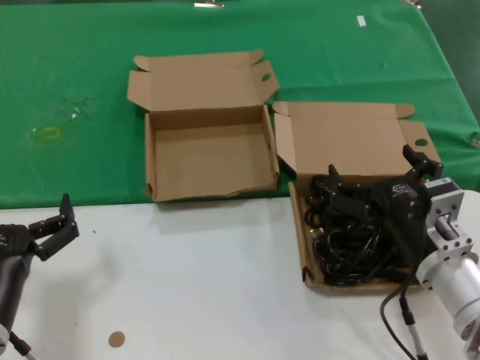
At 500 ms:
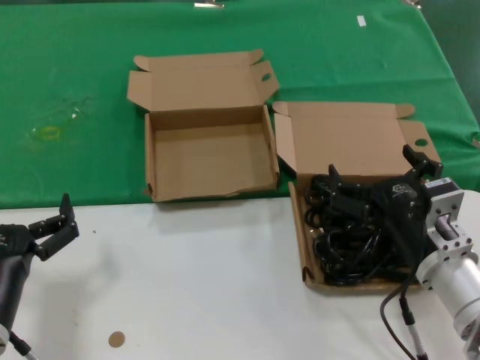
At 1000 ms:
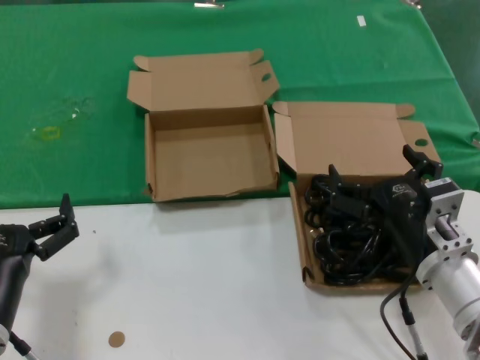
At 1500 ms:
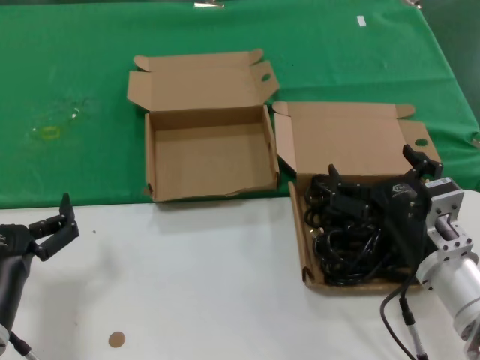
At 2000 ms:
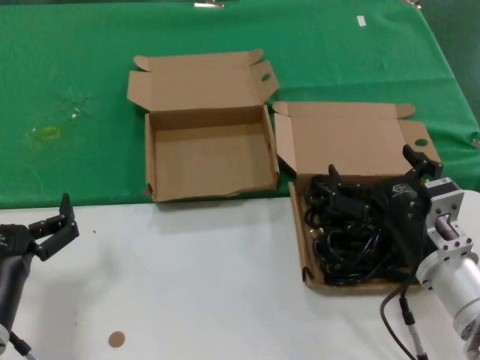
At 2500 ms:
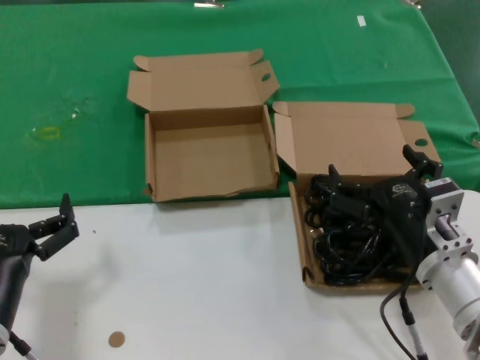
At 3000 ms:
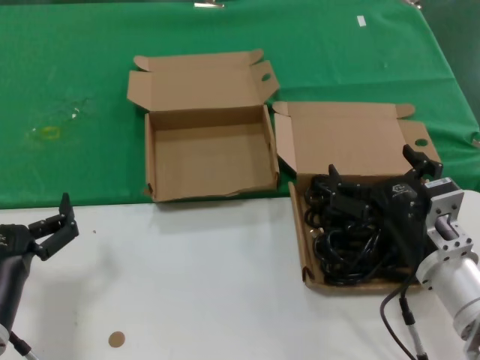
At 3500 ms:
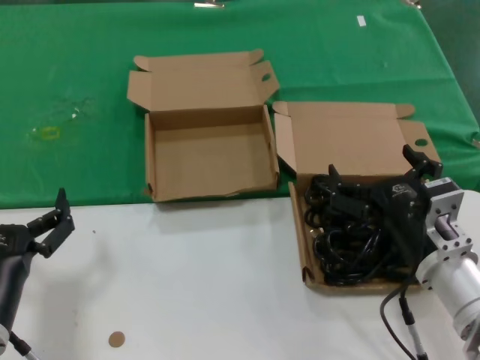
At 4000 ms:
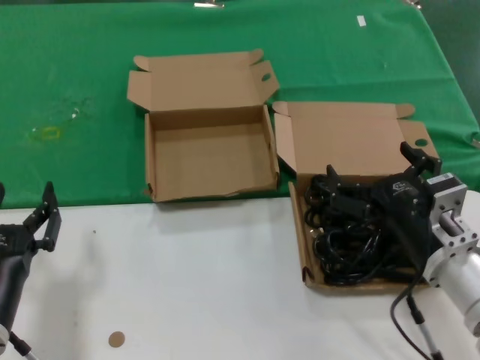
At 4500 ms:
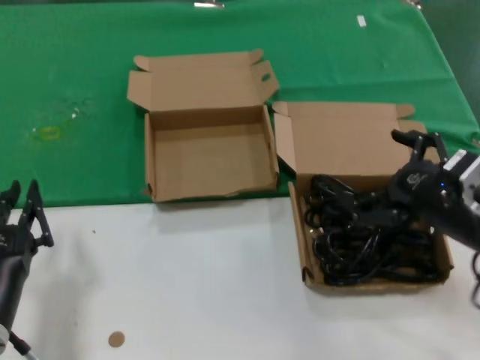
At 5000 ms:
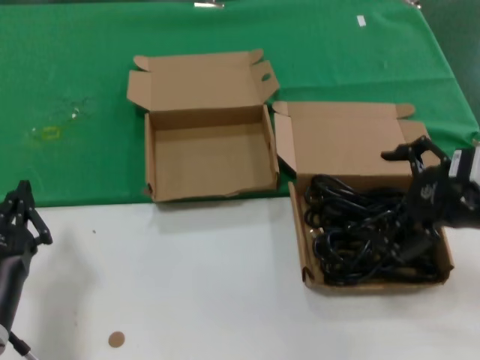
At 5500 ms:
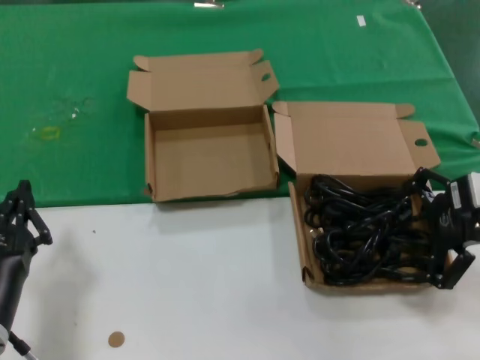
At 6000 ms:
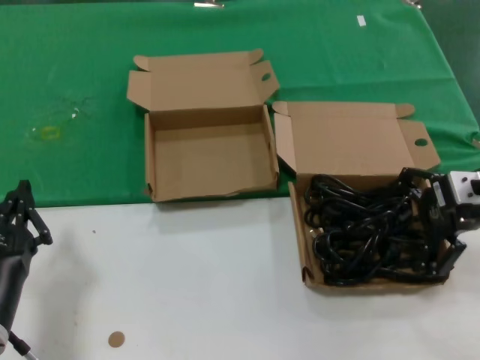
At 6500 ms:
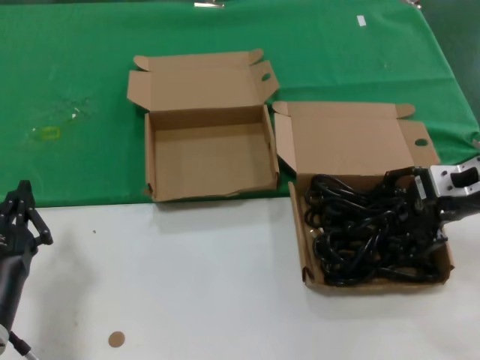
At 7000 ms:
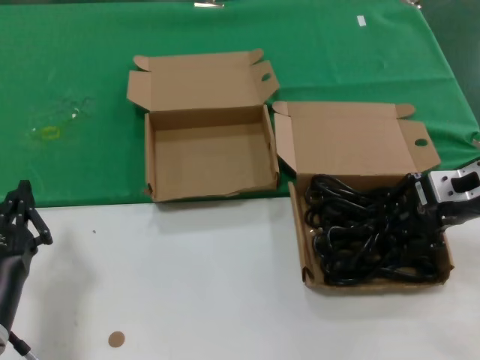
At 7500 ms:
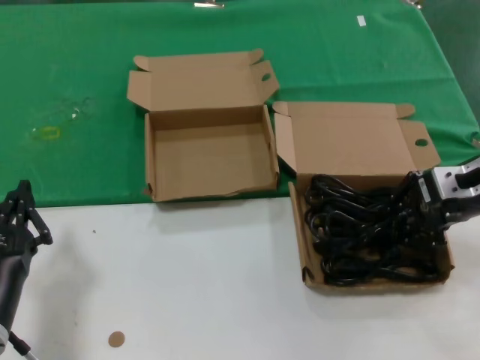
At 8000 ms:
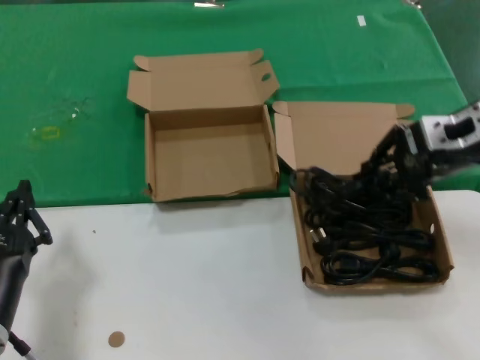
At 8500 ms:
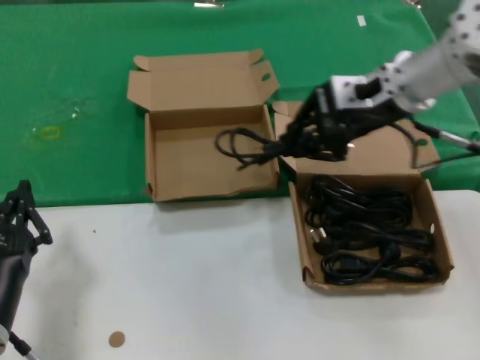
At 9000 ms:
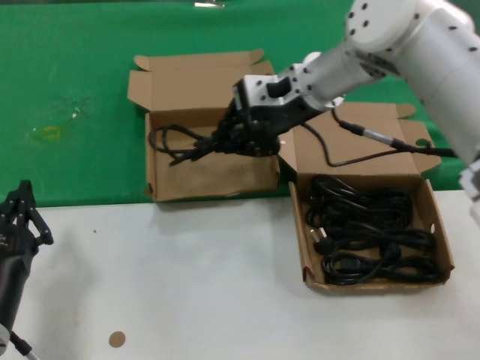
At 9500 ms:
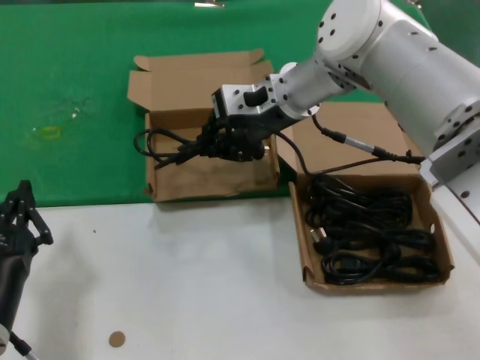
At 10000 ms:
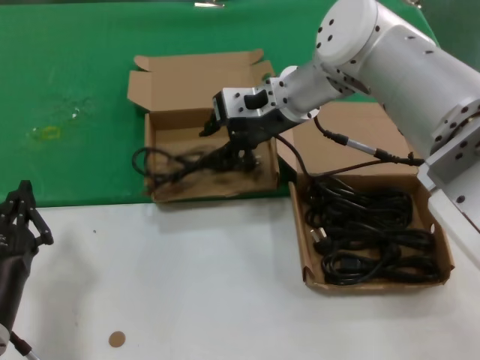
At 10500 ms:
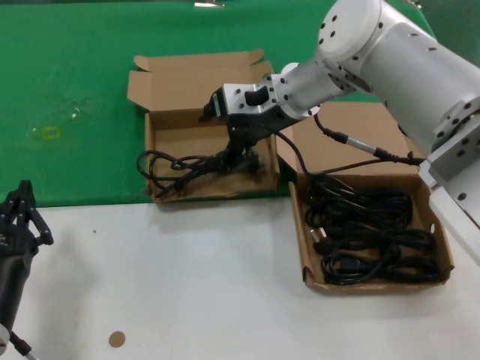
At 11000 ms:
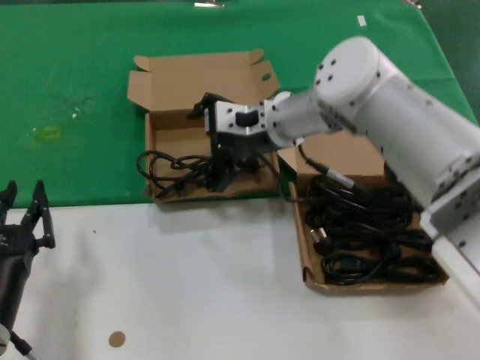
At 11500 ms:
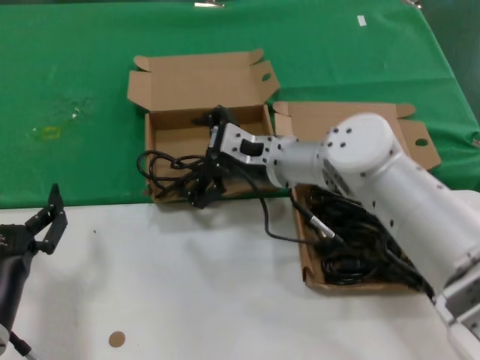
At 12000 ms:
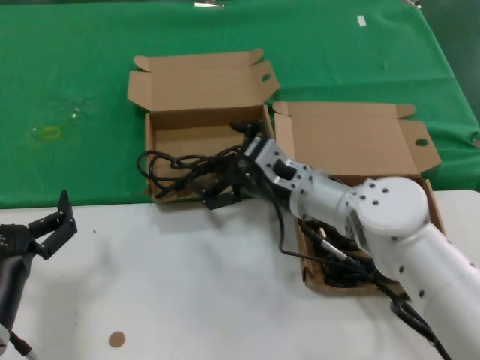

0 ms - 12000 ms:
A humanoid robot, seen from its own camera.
Task of the whole recording: take the parts from the box containing them and put them into an empty box.
Step, 0 ms - 7000 ms: Grasp the data cable.
Step, 7500 ms - 10000 ms: Place the data cable in the another box.
0 ms - 4000 ms: The two hands keep their place.
4000 ms - 6000 ms: The right hand shifts some 20 cm upward, to the right and forward.
6000 ms - 8000 ms: The right hand travels upward by approximately 5 cm.
8000 ms - 10000 ms: The right hand shifts some 25 cm to the left and forward.
10000 ms - 12000 ms: The right hand shifts some 20 cm downward and backward.

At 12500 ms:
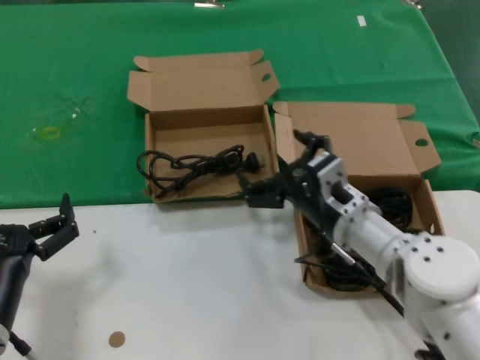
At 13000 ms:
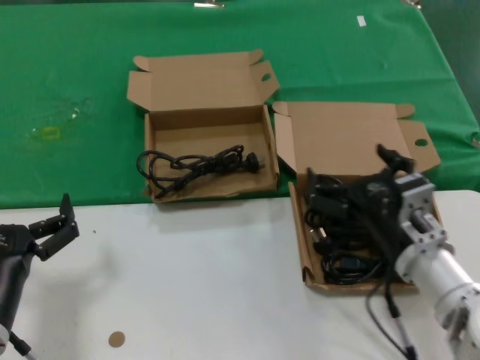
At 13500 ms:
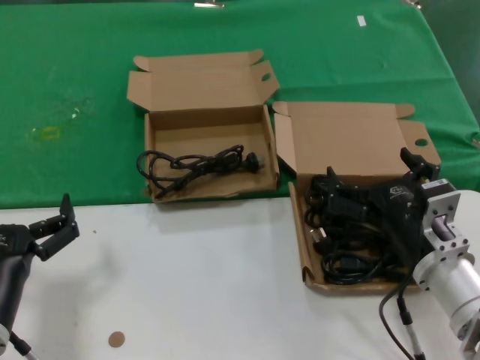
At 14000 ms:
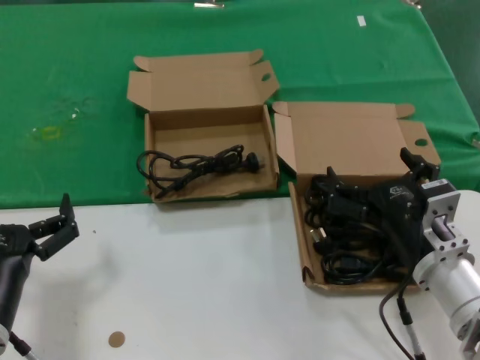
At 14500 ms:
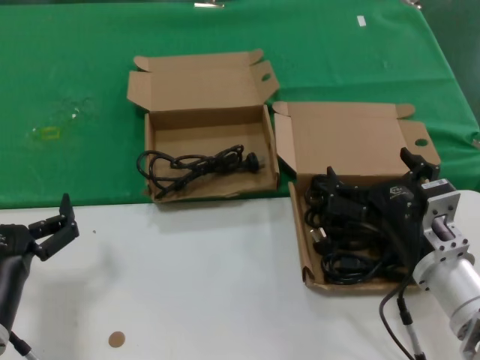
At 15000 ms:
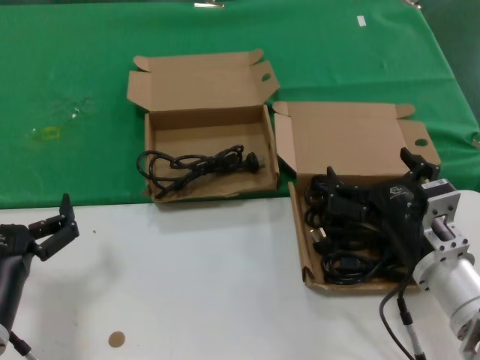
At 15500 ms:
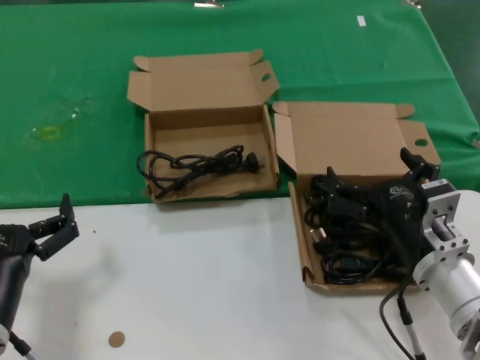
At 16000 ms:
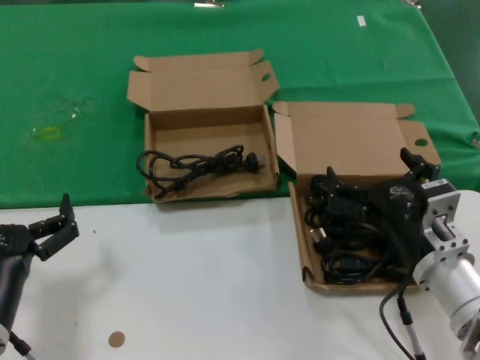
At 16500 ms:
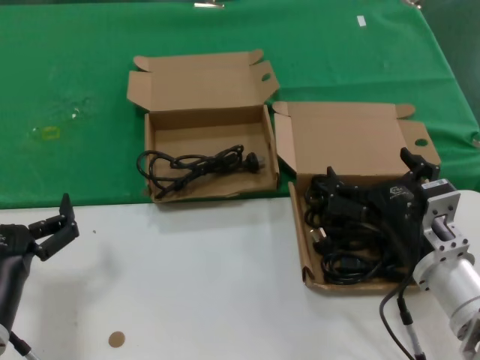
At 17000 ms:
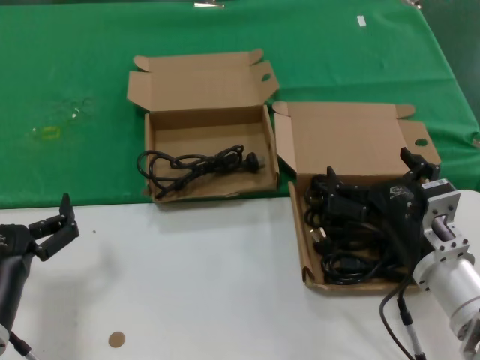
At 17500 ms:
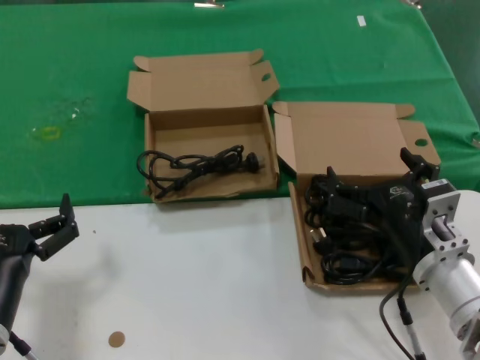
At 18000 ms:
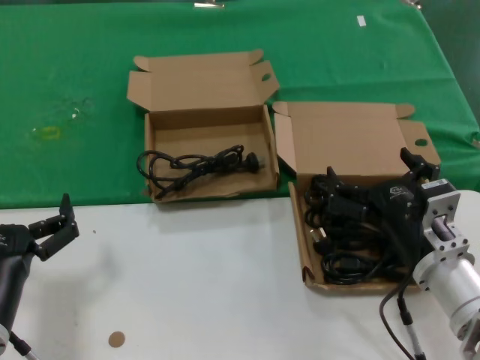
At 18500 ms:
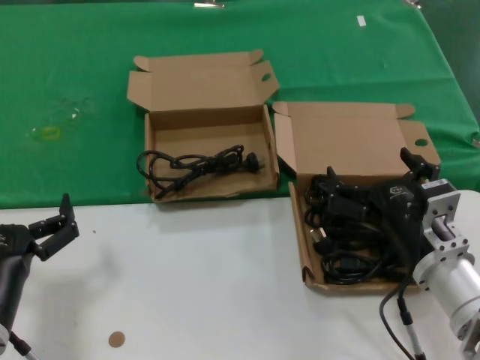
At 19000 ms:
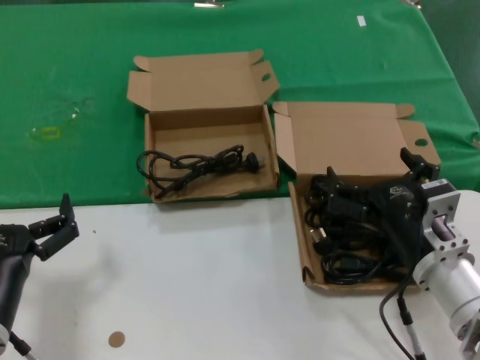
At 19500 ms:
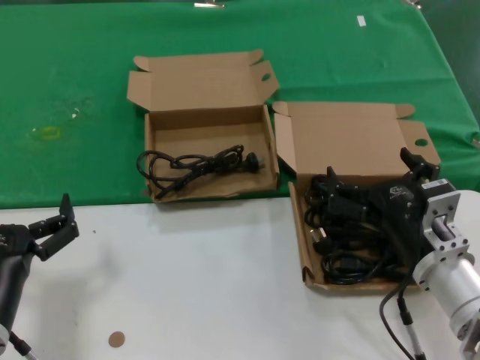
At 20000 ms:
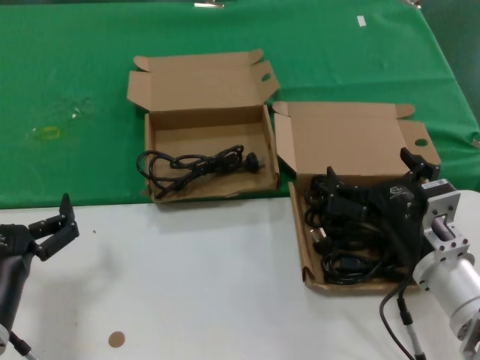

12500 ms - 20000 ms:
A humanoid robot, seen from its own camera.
Task of the whole recording: take the parts from the box containing them and put them into an empty box.
12500 ms - 14500 ms: The right hand is displaced backward and to the right by some 10 cm.
14500 ms - 20000 ms: Both hands stay about where they are.

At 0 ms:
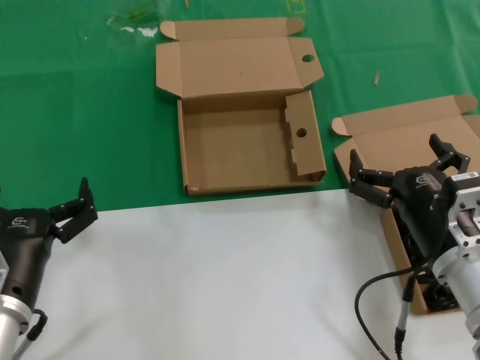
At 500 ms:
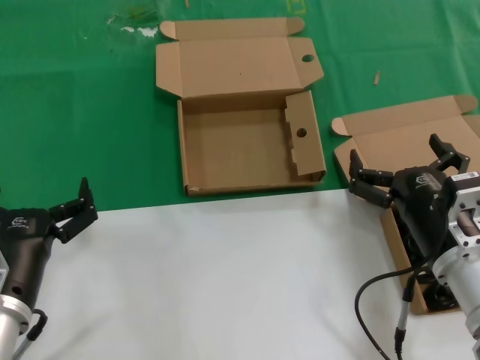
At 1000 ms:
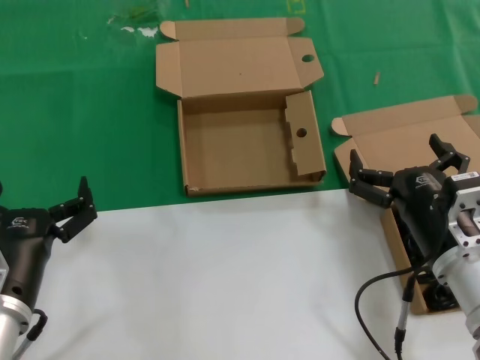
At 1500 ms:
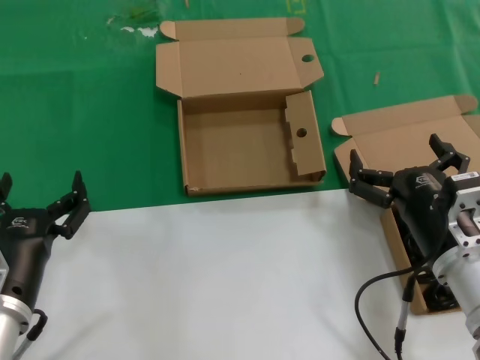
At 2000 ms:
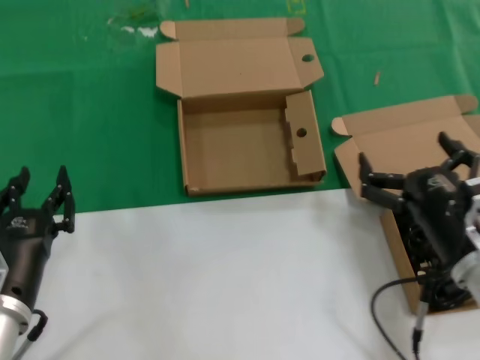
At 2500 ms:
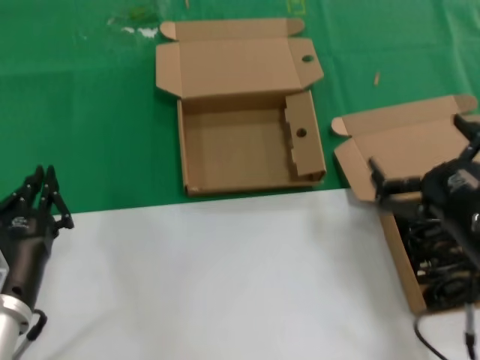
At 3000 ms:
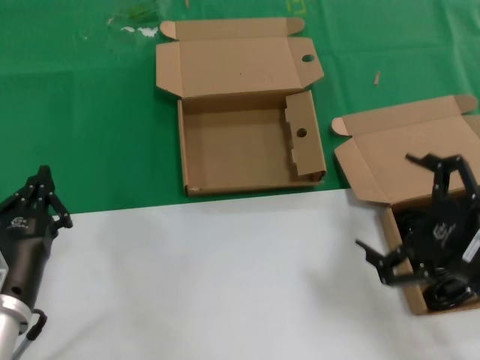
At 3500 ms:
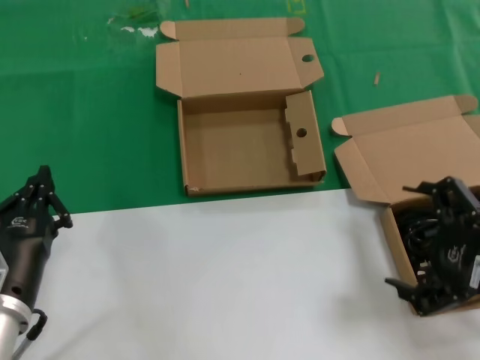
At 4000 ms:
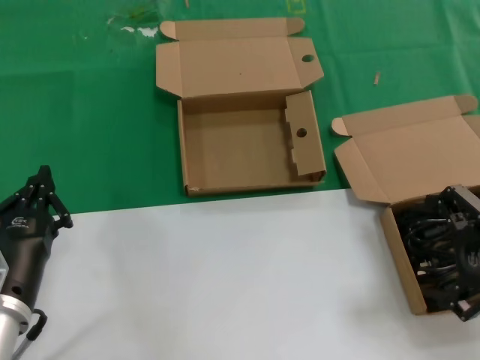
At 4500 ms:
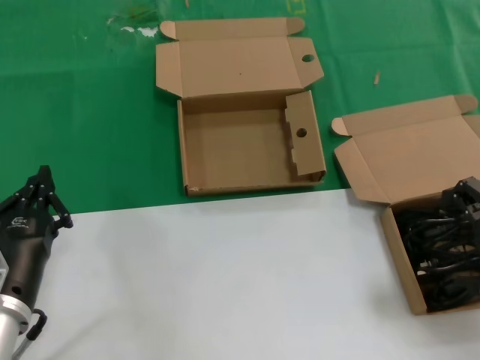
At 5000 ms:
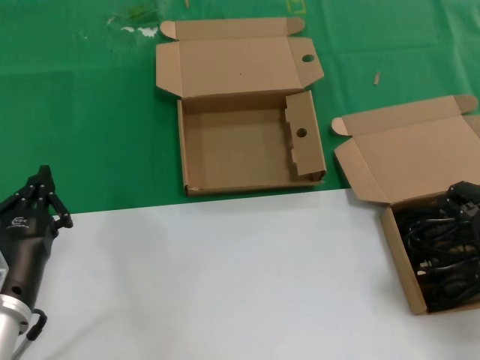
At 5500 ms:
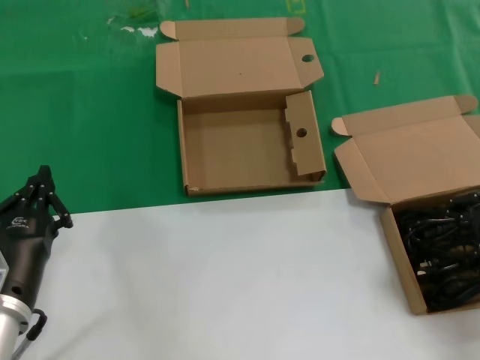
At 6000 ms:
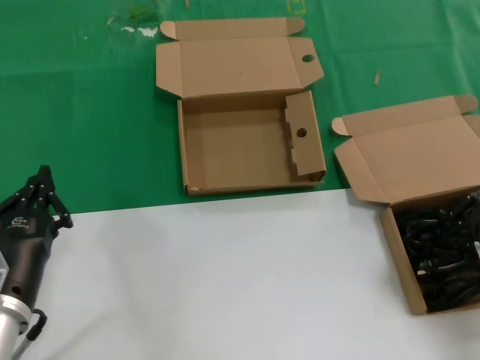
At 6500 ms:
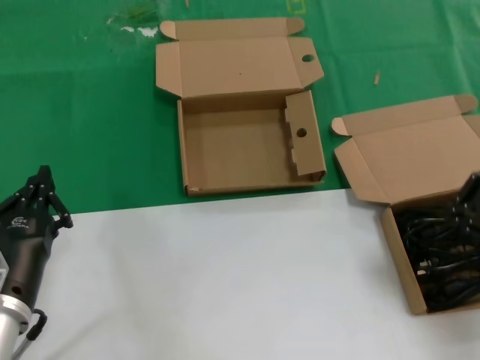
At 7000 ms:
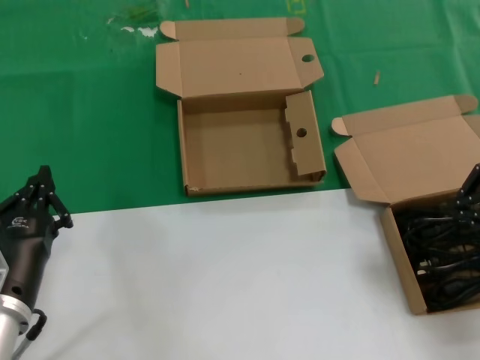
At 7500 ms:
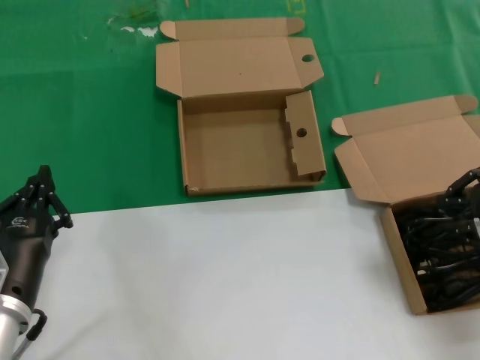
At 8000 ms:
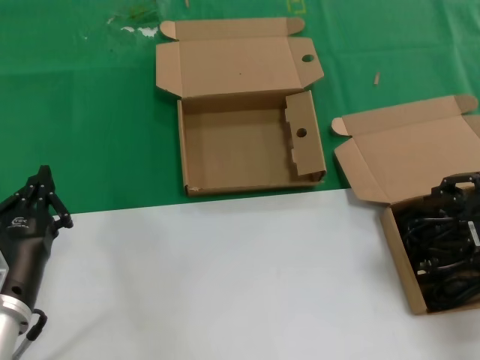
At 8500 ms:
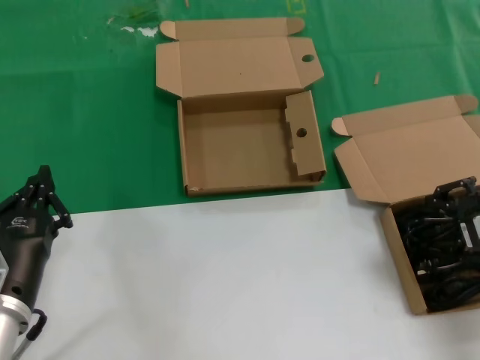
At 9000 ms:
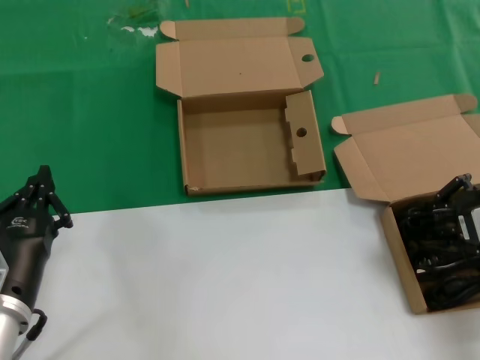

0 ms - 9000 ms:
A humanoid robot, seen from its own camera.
Task of the whole recording: take the parts from the box containing them and put them into an empty box.
0 ms - 2000 ms: There are only small adjustments of the hands.
2000 ms - 4500 ms: The right hand goes approximately 15 cm upward and to the right.
4500 ms - 7000 ms: The right hand changes place by roughly 5 cm.
7000 ms - 9000 ms: The right hand goes some 5 cm downward.
